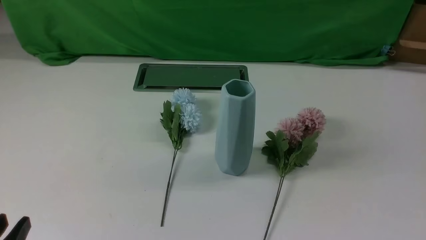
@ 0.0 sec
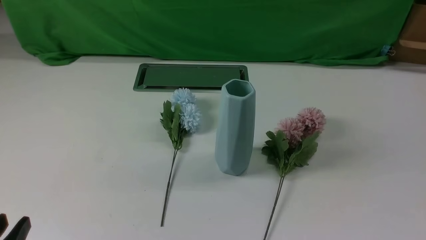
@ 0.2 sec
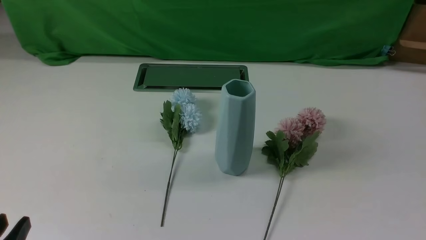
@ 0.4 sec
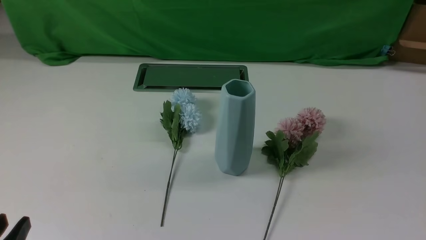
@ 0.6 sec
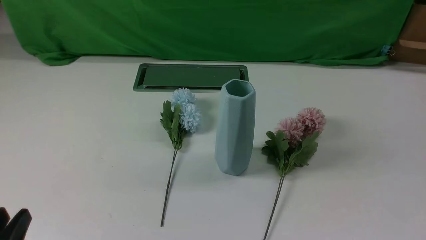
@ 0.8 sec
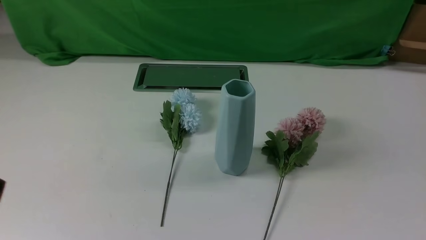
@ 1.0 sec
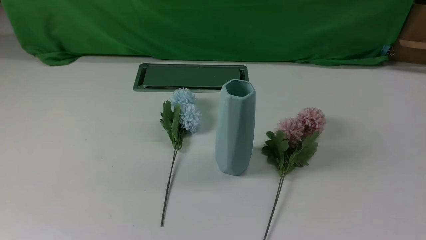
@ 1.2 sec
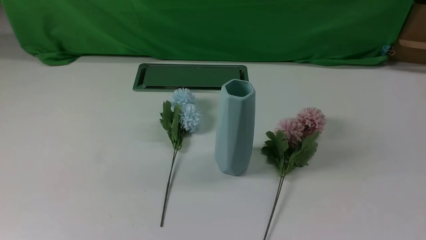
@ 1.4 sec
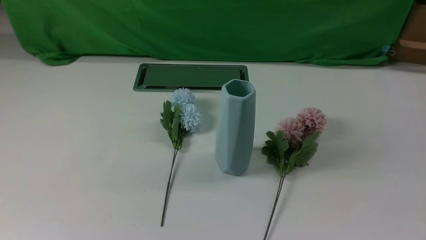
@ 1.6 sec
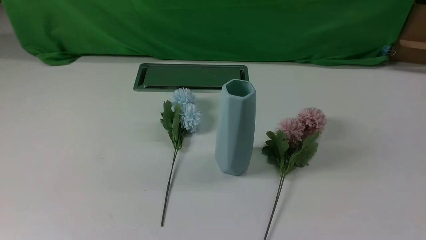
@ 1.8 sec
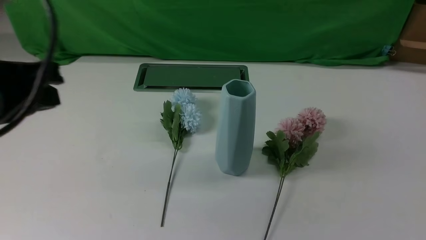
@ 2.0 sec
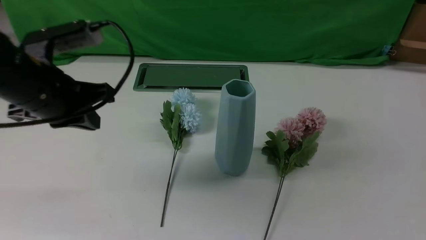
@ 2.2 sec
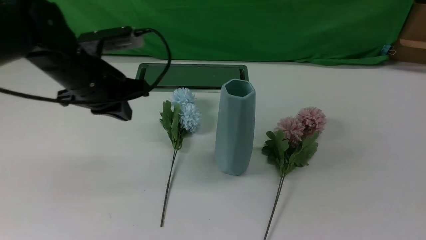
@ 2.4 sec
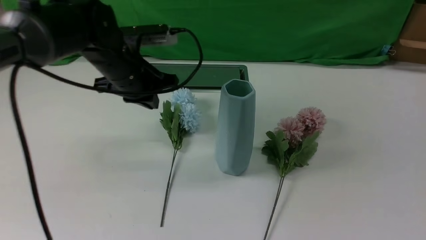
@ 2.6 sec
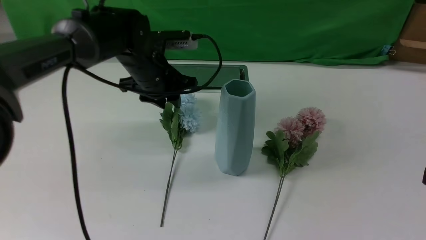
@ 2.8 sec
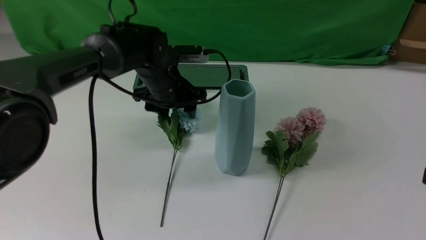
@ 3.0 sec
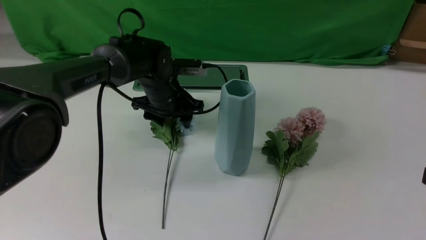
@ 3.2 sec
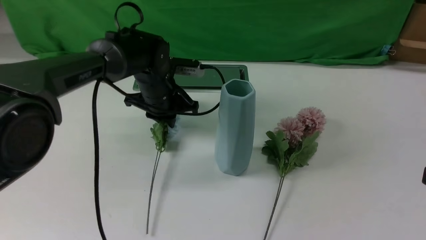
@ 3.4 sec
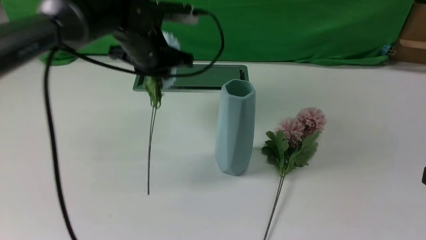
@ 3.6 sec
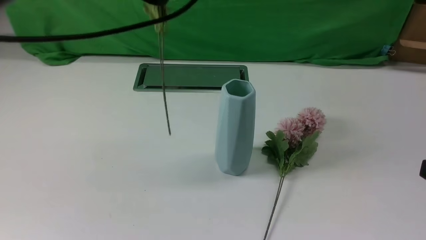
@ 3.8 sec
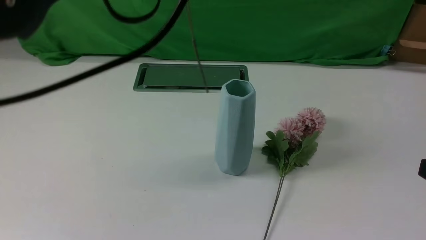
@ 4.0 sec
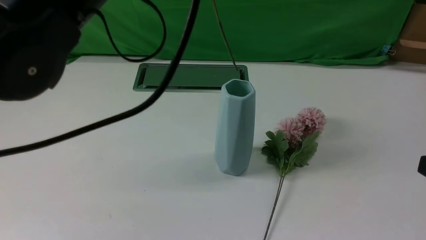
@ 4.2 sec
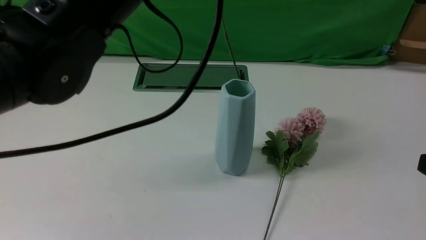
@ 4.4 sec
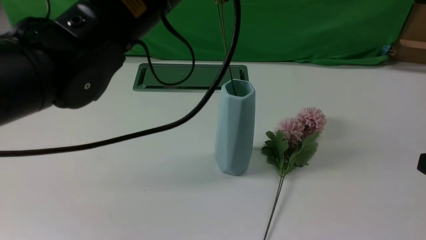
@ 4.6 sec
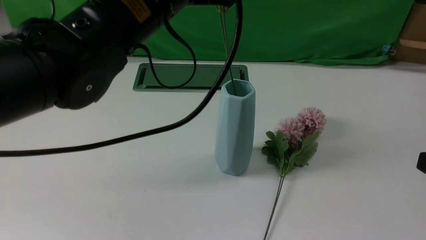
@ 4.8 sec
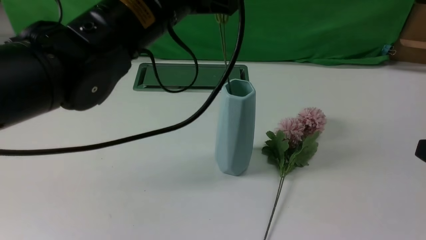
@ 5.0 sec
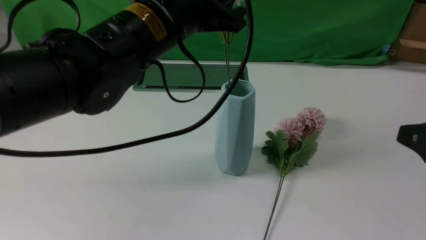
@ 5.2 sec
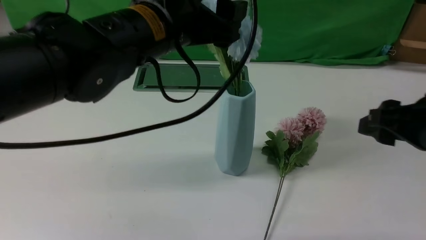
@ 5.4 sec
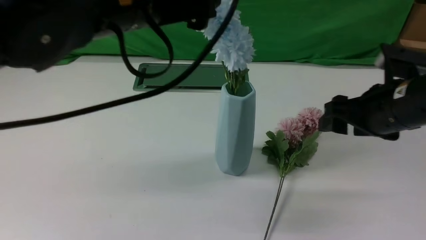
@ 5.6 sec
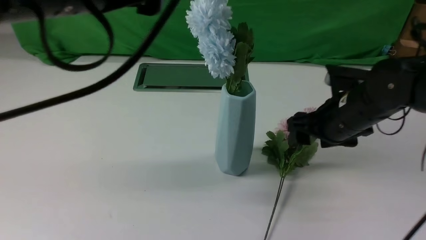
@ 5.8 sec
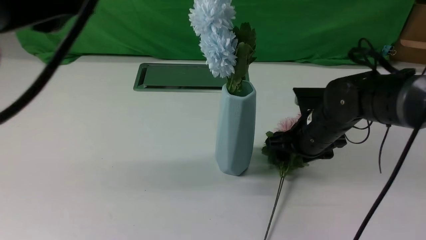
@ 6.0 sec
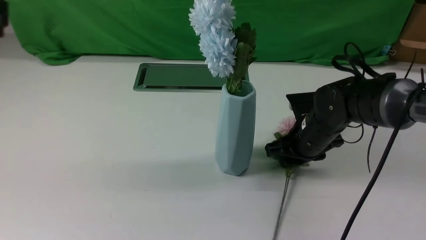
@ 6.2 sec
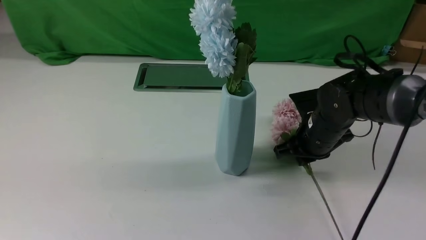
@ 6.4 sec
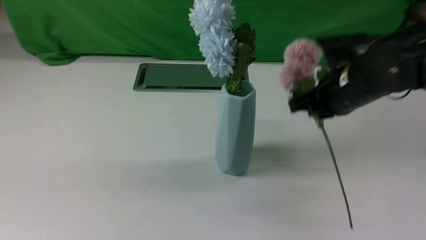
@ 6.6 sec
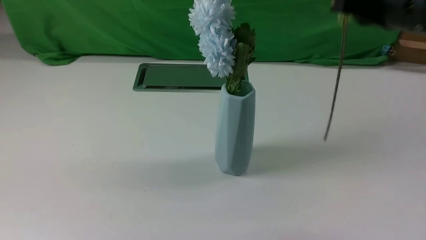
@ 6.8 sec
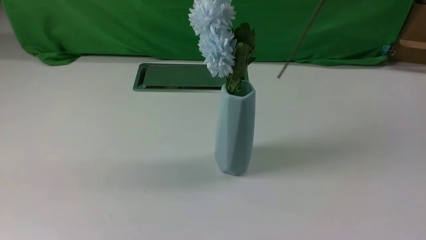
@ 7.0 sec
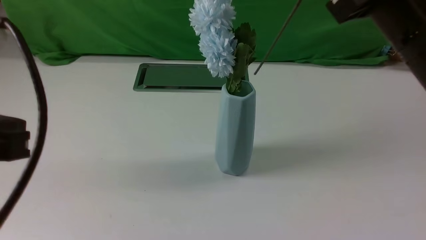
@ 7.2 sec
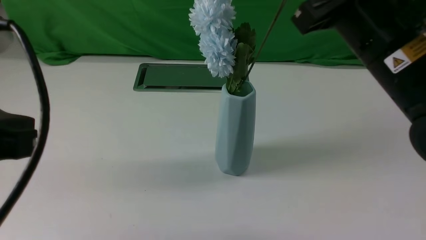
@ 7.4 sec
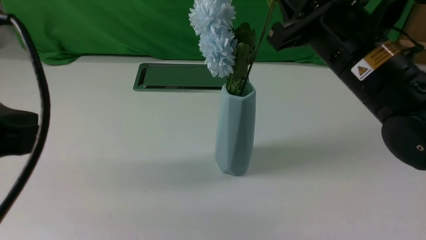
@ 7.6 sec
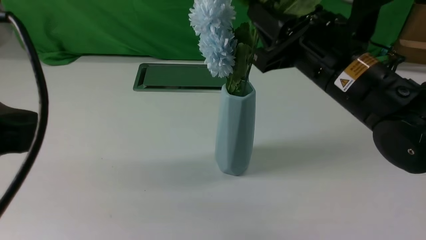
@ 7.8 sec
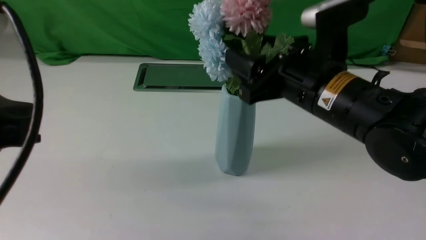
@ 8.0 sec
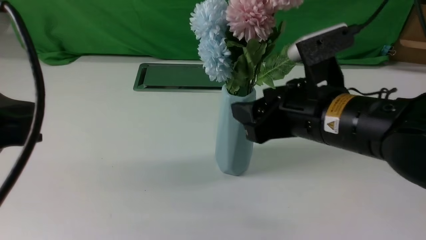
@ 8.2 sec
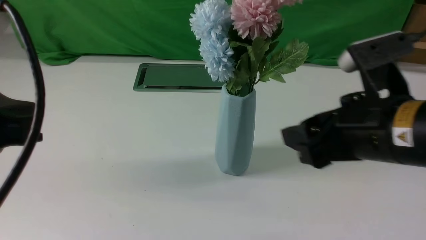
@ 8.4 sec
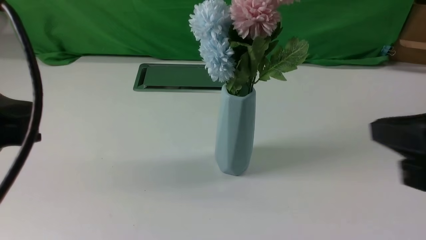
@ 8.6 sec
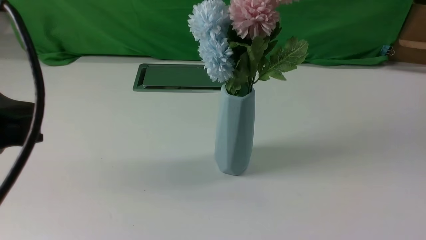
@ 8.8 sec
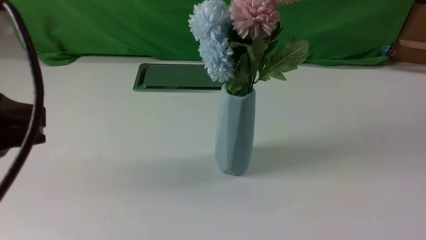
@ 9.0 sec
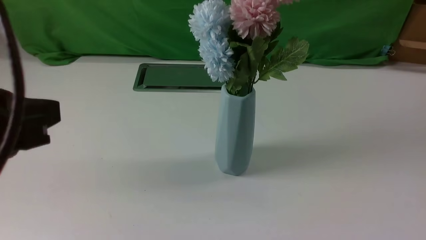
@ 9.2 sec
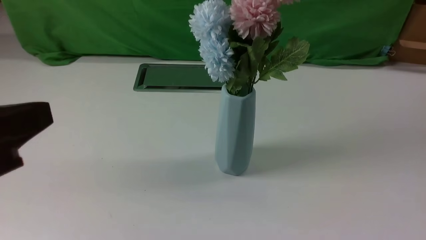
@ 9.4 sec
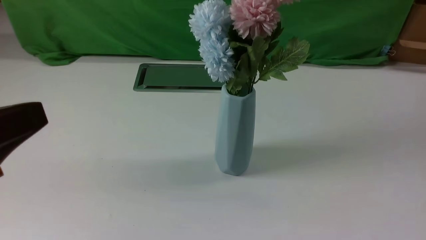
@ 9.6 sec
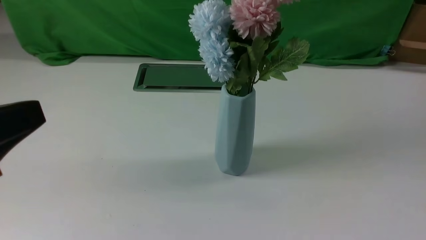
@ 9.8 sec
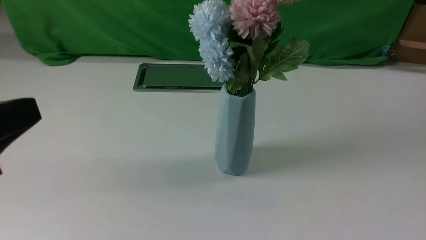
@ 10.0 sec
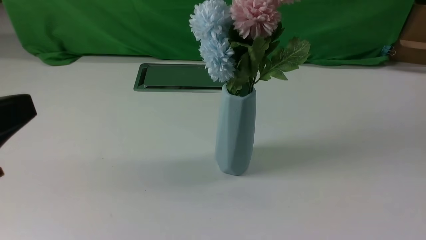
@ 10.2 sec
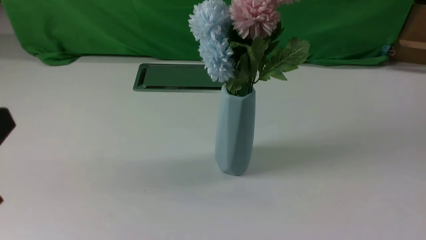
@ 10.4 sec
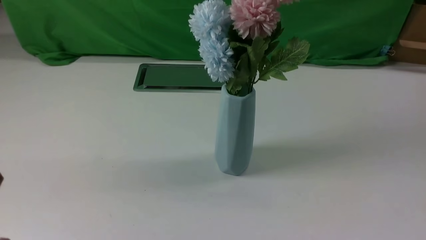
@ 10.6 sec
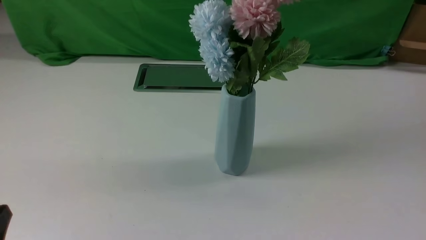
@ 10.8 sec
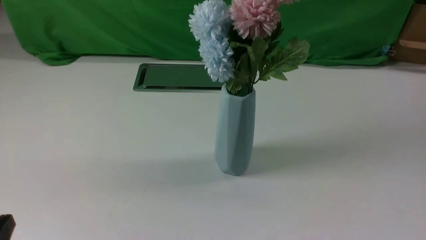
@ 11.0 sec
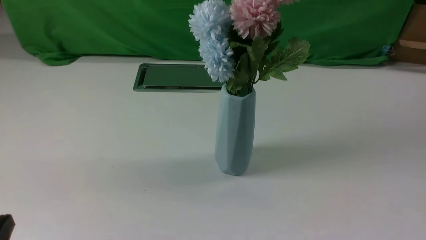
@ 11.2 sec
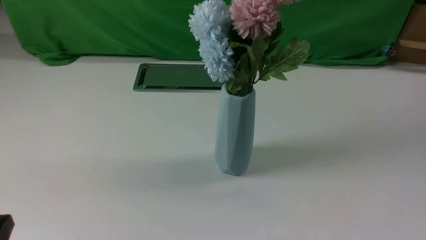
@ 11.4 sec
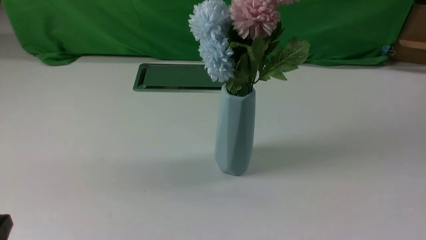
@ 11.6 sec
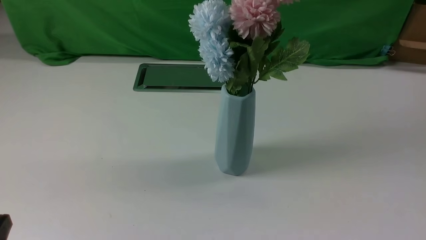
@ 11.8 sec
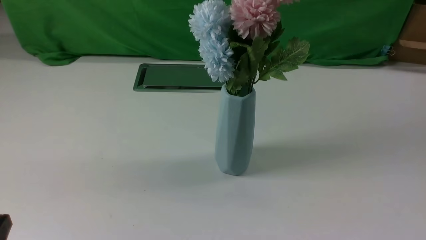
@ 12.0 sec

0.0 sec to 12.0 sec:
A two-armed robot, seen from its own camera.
Task of the whole recording: insert the flowers into the vase on the white table.
Step, 0.0 sec to 3.2 sec: use the left arm to grab a bunch of fresh flowers.
Step, 3.6 sec to 5.4 sec: use the left arm to insert the flowers into the vase.
Step, 5.6 sec to 6.4 sec: use the right arm to grab a bunch of fresh flowers.
Step, 6.6 sec to 8.2 sec: use the right arm to insert the flowers into the vase.
1.6 sec to 3.0 sec: The right gripper goes roughly 10 cm upward and forward; the left gripper is displaced forward and to the right by some 40 cm, and opens.
3.0 sec to 4.4 sec: The left gripper travels upward and backward by about 30 cm, and closes.
4.4 sec to 6.0 sec: The left gripper moves backward and to the left, some 15 cm, and opens, then closes once more. The right gripper moves forward, downward and to the left, approximately 30 cm, and opens its fingers.
6.0 sec to 7.6 sec: The right gripper moves upward and backward, approximately 20 cm, and closes its fingers. The left gripper travels downward and backward by roughly 10 cm, and closes.
7.6 sec to 9.0 sec: The right gripper is displaced backward and to the right by roughly 30 cm, and opens and closes again.
9.0 sec to 10.4 sec: The left gripper goes about 5 cm downward.
10.4 sec to 12.0 sec: The left gripper shifts roughly 15 cm downward.

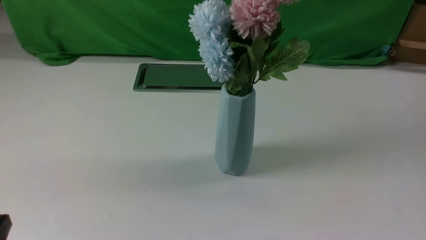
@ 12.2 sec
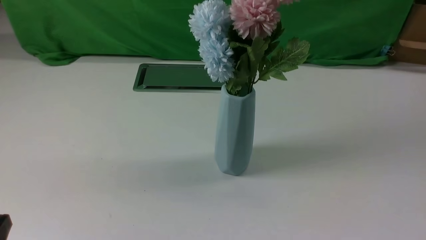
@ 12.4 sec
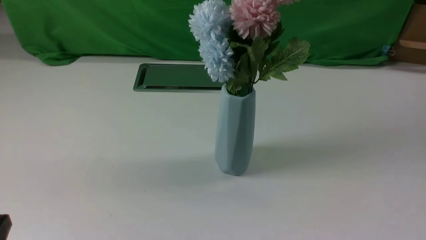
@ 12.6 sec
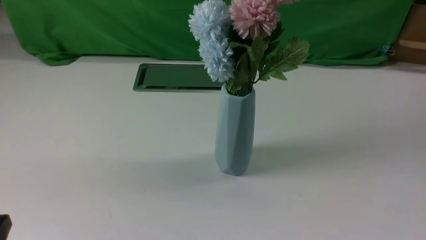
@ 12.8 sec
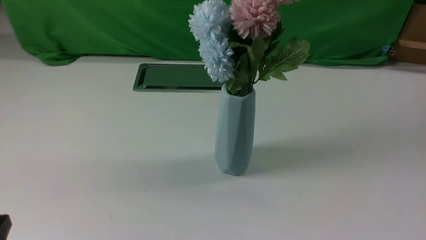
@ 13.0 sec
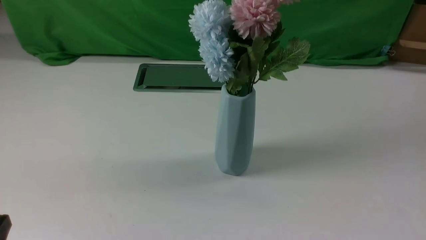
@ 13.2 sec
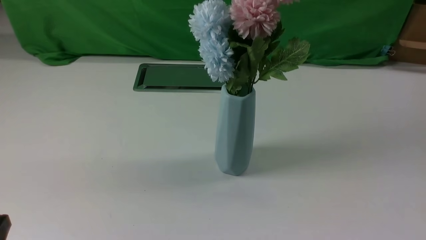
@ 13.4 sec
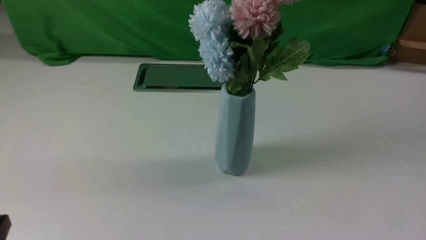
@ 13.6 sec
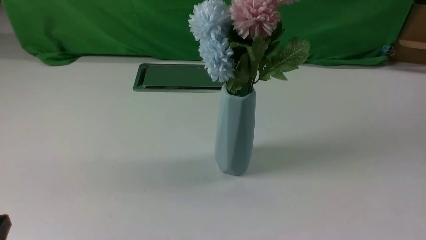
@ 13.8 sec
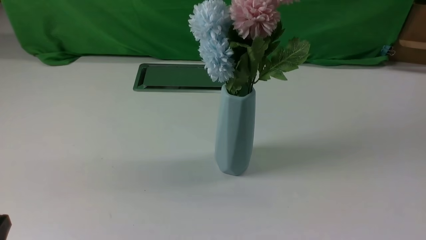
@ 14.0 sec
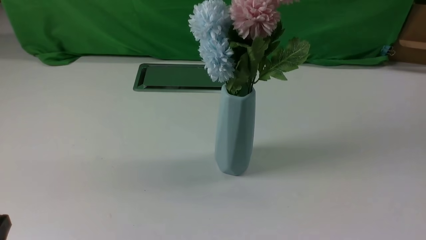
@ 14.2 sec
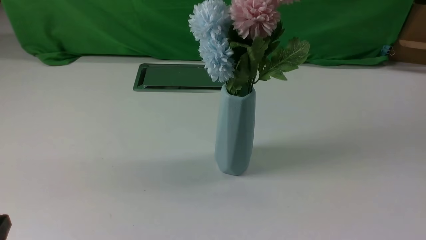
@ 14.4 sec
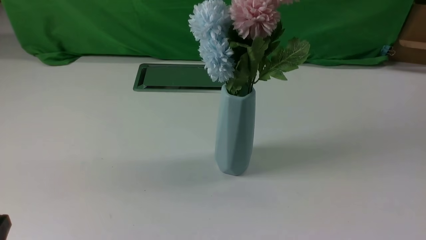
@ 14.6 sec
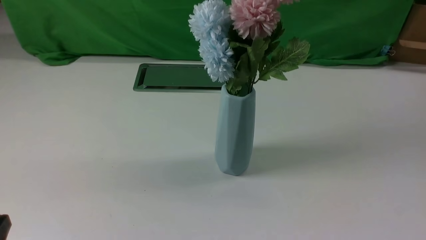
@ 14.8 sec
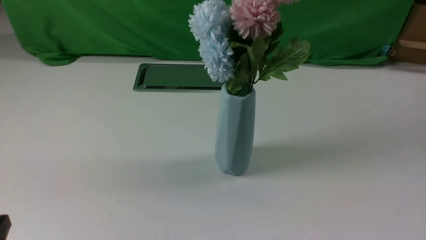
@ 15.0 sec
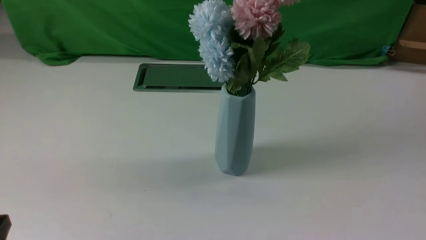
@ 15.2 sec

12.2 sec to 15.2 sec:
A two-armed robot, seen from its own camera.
Task of the whole recording: insert the flowers into the vase on the white table.
13.8 sec to 15.2 sec: Neither gripper changes place.
